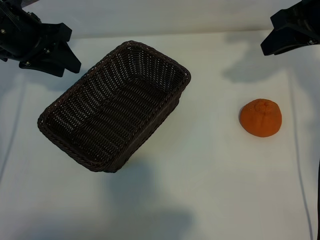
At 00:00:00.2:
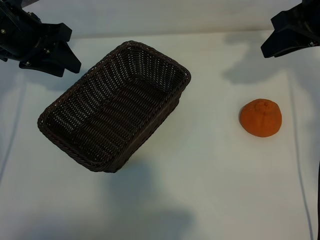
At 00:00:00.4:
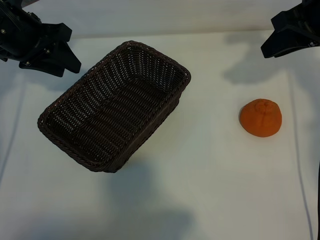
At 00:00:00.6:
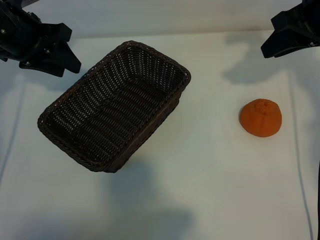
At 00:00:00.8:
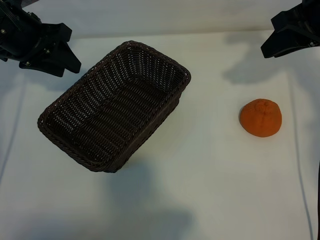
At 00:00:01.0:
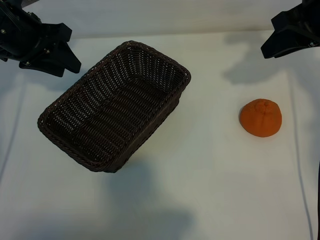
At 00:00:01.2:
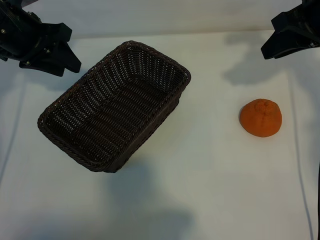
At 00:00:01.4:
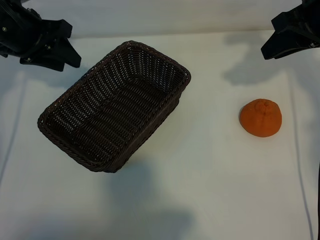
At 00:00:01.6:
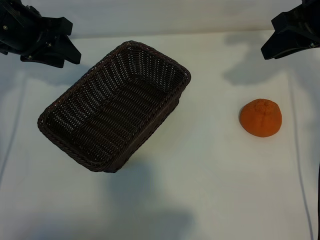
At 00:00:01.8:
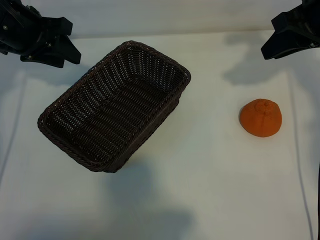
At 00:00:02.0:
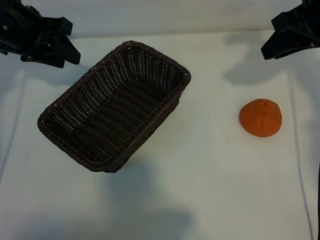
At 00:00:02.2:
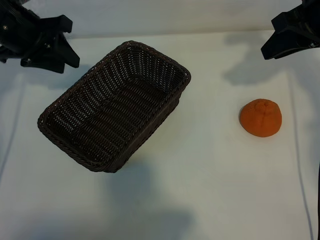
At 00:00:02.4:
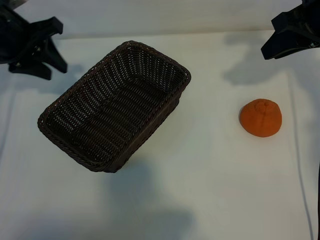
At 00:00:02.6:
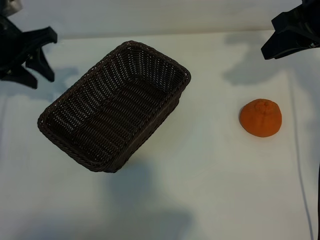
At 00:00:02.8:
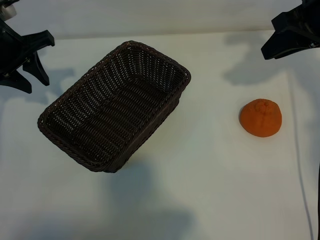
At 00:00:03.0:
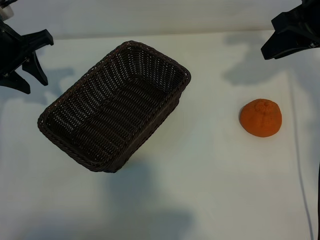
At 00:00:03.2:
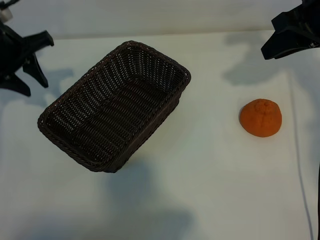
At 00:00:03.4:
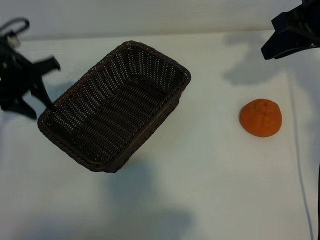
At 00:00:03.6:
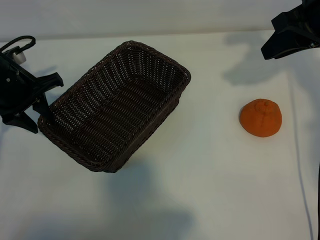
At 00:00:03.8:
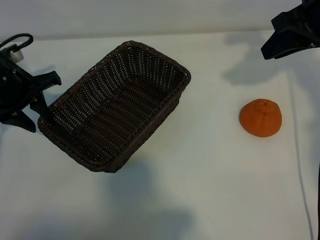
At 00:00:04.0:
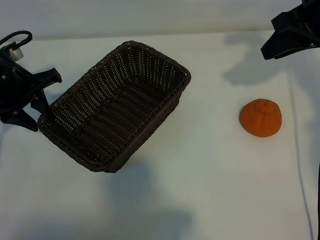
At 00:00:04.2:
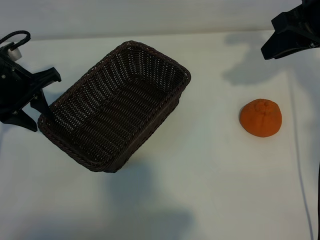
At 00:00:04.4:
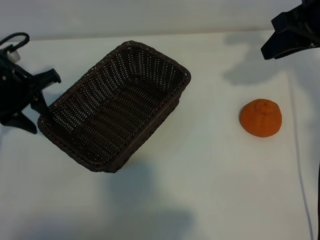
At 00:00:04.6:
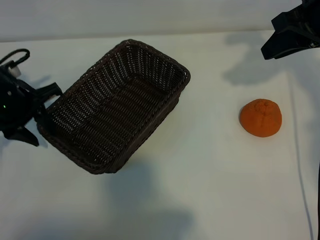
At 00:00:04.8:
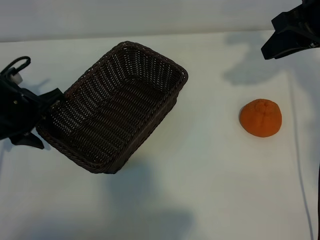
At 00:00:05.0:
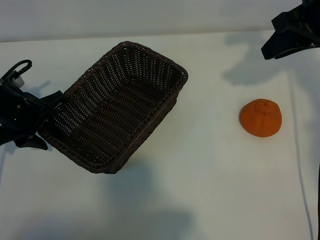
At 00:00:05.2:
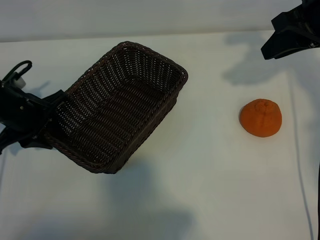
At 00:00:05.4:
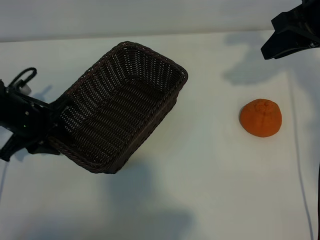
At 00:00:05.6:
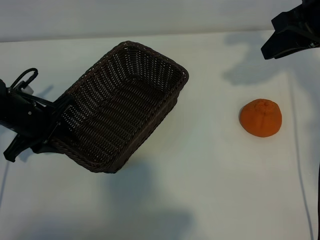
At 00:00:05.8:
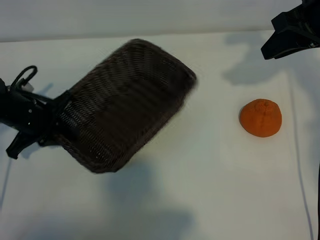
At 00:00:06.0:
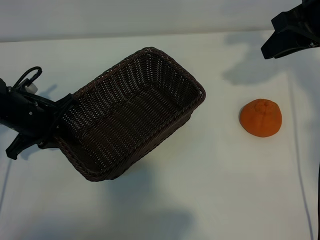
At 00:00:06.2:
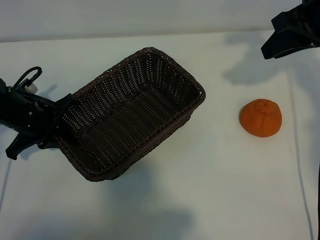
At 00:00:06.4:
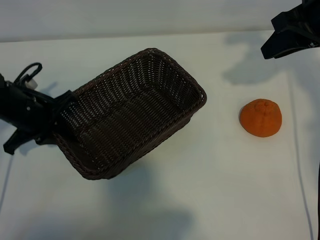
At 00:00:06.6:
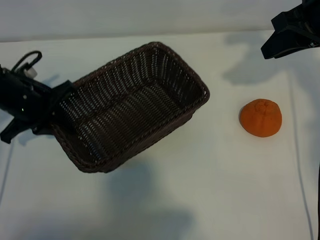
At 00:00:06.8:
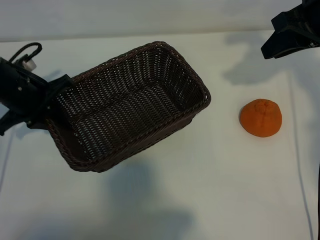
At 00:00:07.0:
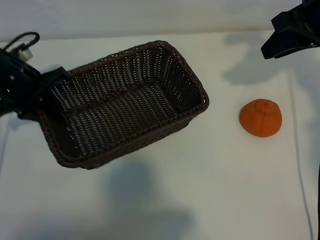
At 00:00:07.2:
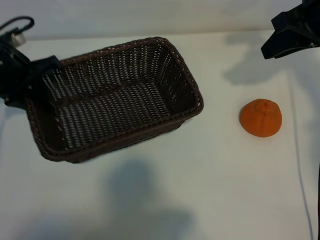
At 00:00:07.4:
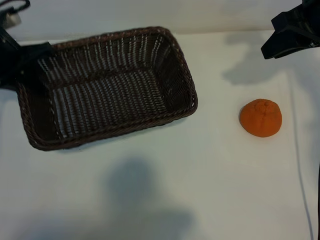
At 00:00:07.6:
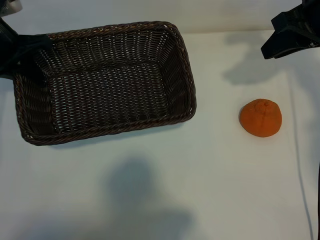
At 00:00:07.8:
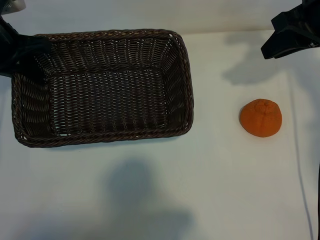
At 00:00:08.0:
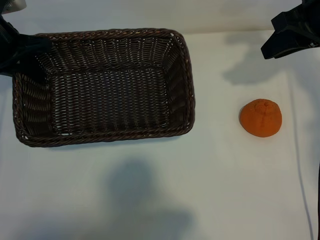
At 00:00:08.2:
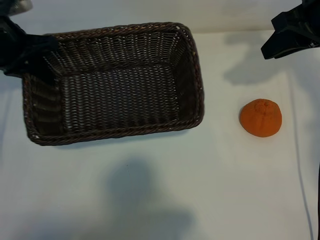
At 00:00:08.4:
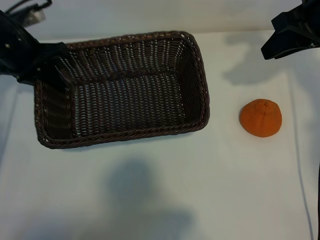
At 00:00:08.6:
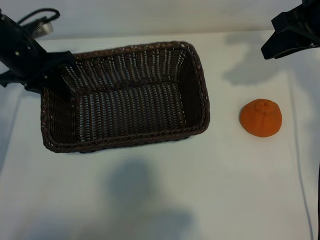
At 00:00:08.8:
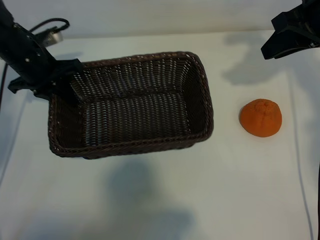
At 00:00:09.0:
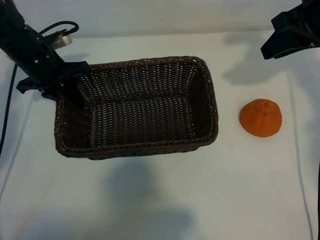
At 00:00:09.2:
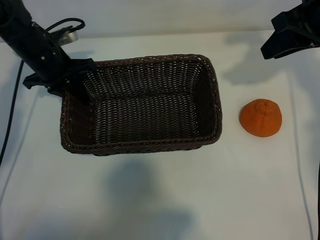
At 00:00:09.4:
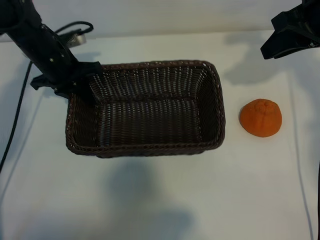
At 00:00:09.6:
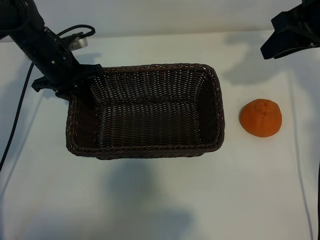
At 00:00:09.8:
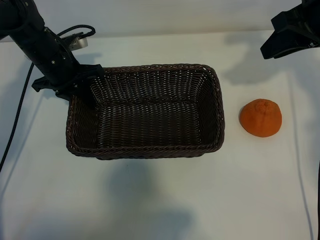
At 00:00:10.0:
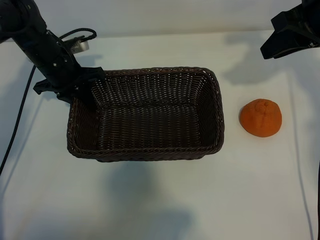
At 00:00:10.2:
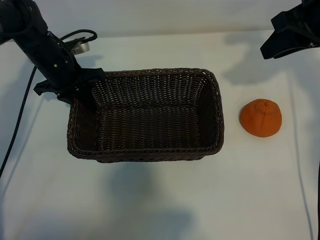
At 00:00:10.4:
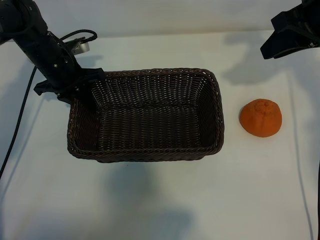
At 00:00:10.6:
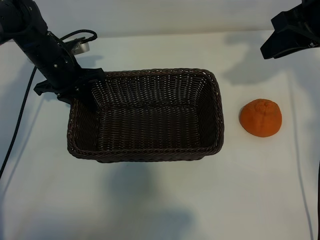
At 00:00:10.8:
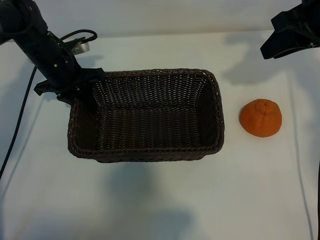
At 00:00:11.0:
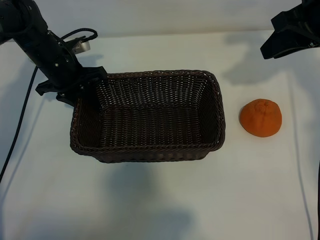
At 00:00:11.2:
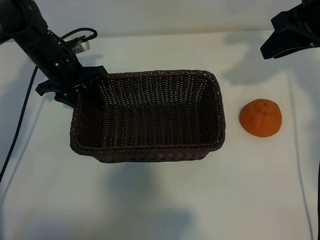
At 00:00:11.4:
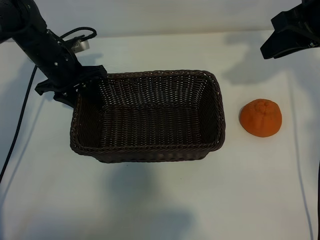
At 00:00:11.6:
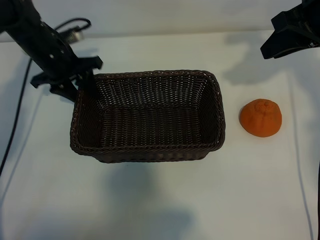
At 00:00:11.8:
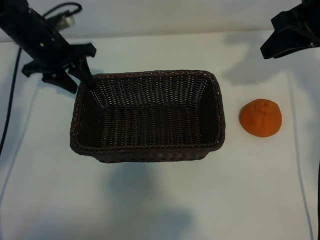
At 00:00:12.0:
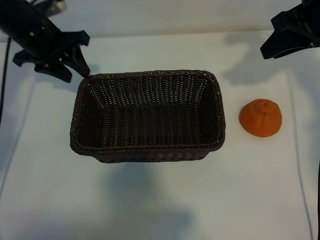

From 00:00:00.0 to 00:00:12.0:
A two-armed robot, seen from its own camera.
Task of the whole recording: pick up the orange and put it into the basket.
Step, from 00:00:00.0 to 00:00:05.8: Grasp the basket with left gripper.
Step, from 00:00:06.0 to 00:00:11.0: Place the basket in the center of view with left gripper.

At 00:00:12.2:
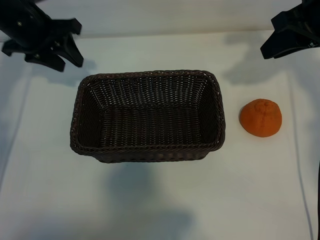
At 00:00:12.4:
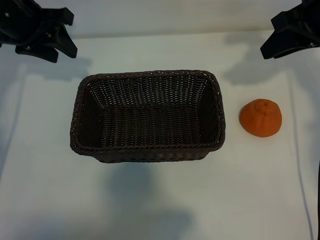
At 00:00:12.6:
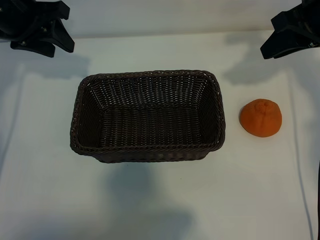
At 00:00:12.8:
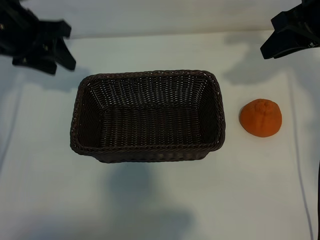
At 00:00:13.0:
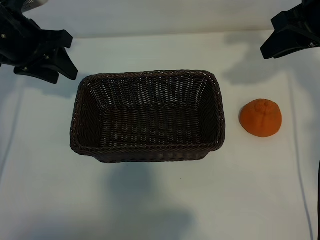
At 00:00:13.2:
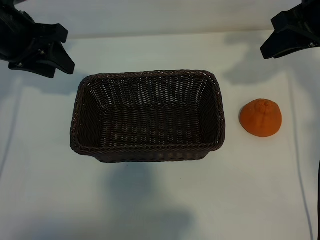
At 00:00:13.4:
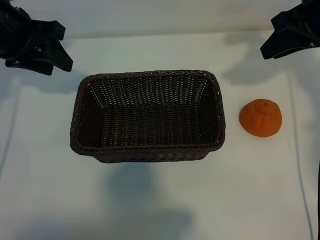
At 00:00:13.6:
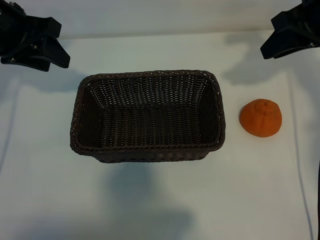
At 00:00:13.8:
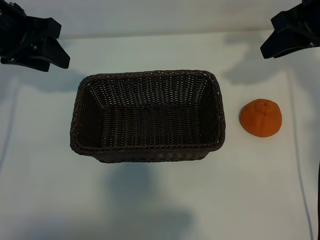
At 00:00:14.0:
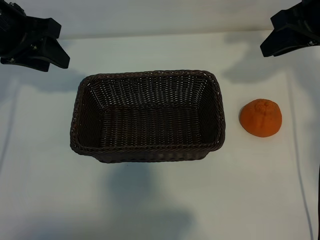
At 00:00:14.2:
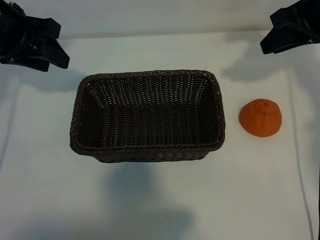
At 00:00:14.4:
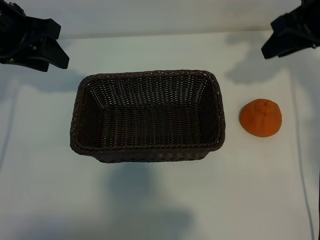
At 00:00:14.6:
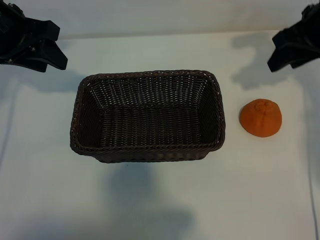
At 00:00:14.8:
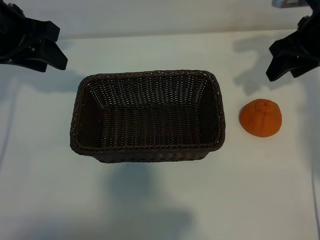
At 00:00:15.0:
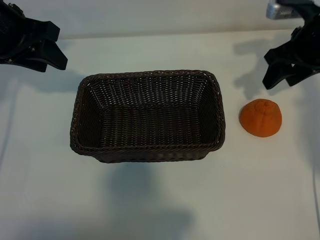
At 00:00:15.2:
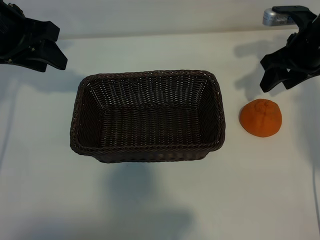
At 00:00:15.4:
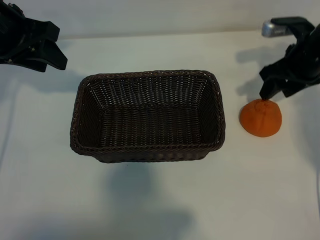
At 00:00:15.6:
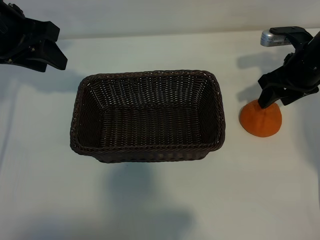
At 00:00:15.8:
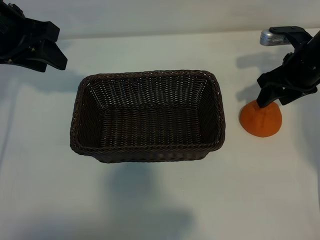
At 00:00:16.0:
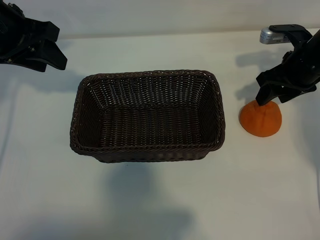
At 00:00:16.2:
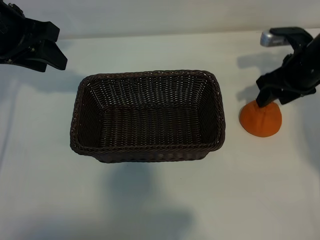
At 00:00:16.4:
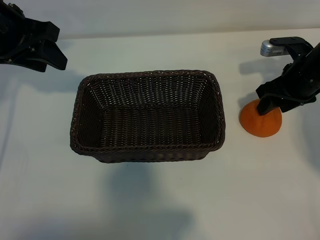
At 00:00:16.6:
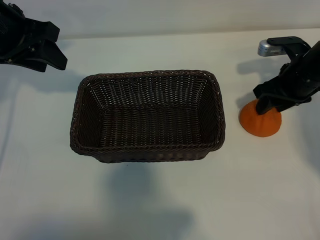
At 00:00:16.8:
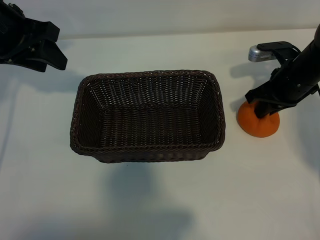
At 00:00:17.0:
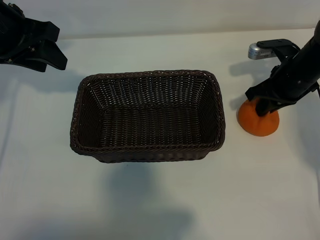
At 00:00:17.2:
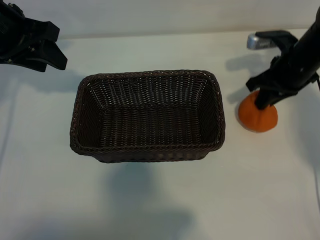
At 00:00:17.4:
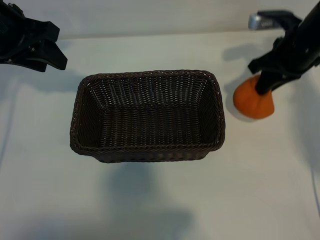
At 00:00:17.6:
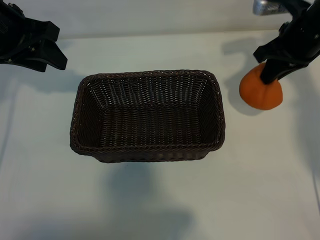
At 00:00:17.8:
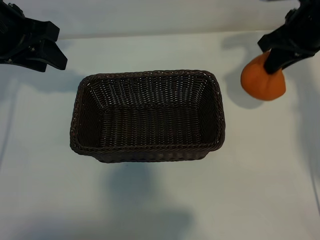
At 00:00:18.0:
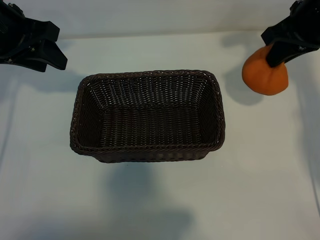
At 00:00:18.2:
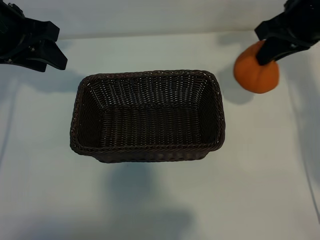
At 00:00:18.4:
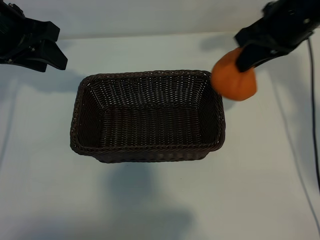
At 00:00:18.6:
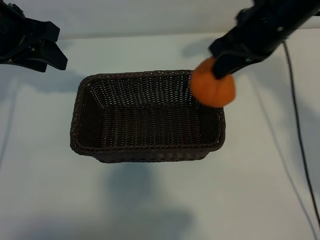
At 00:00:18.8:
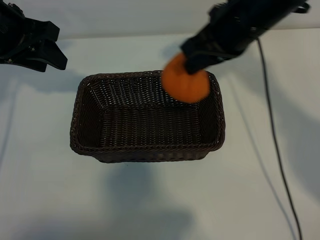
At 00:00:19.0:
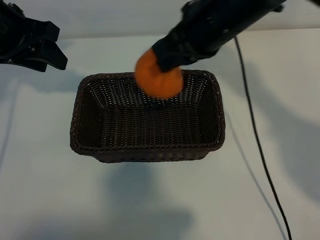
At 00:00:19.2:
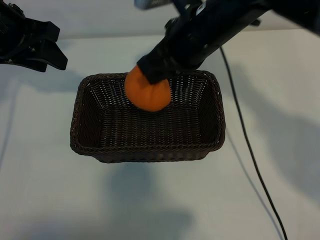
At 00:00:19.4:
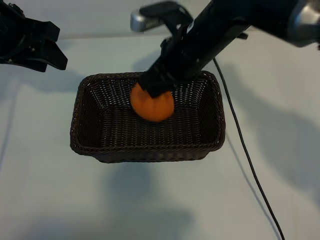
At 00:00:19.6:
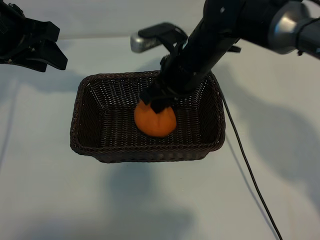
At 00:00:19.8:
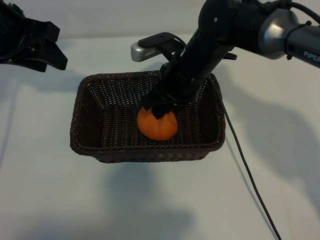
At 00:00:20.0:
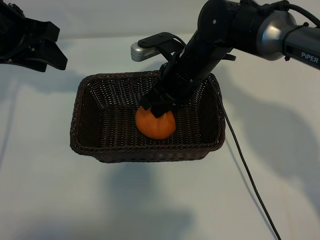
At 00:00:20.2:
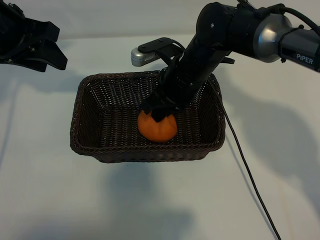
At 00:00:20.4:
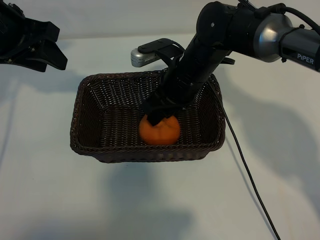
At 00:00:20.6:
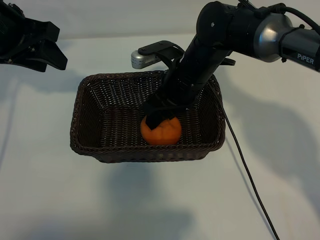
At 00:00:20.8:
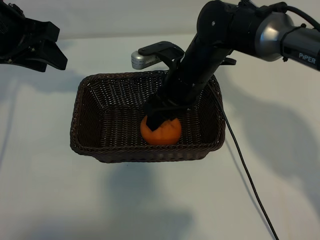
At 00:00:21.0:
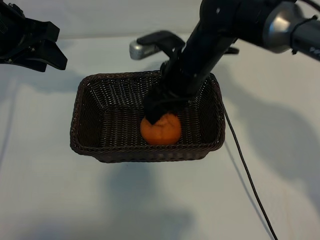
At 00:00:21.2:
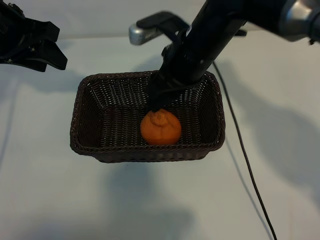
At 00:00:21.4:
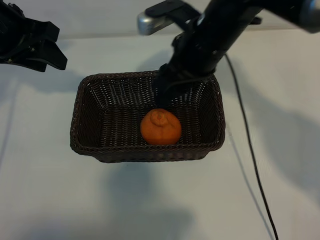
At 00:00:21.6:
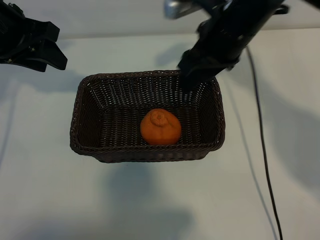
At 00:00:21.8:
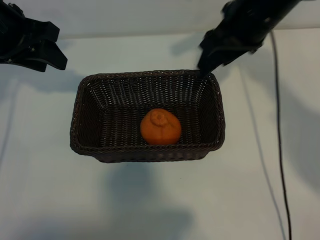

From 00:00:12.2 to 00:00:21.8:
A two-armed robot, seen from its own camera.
Task of the whole recording: pick up the orange and put it into the basket.
Step, from 00:00:12.2 to 00:00:17.0: Grasp the orange with right gripper.
Step, from 00:00:17.2 to 00:00:20.6: Place the orange in the basket with right gripper.
